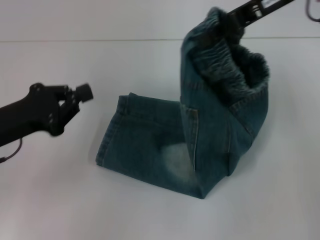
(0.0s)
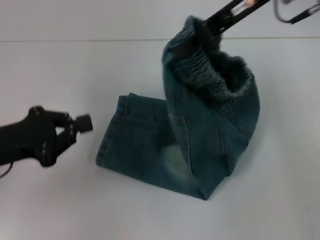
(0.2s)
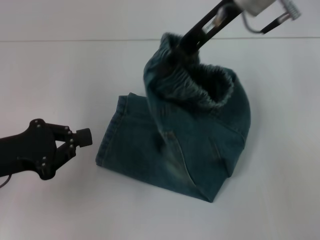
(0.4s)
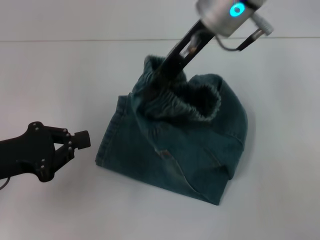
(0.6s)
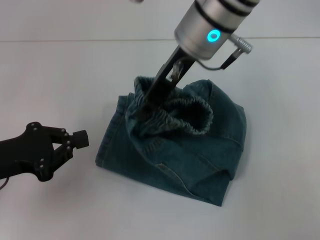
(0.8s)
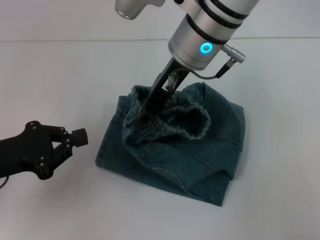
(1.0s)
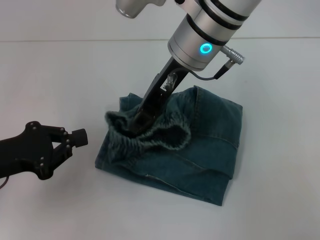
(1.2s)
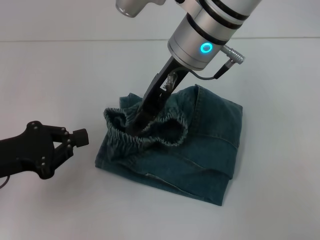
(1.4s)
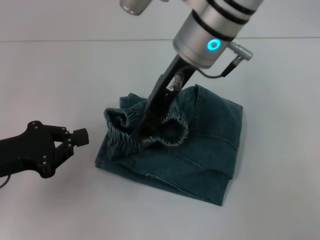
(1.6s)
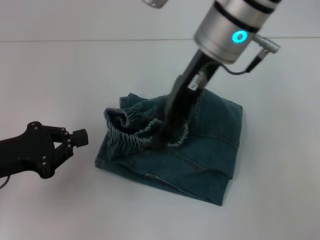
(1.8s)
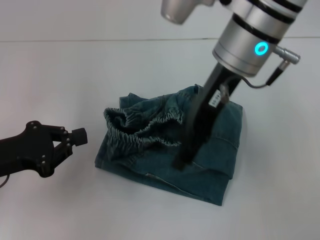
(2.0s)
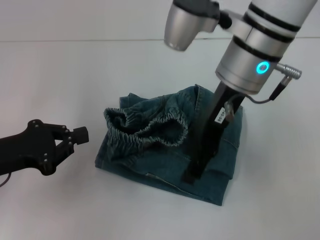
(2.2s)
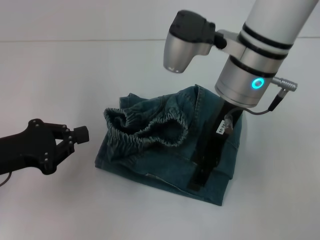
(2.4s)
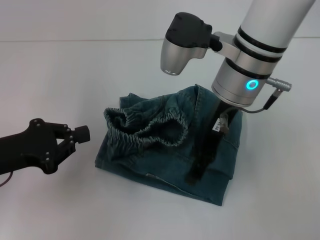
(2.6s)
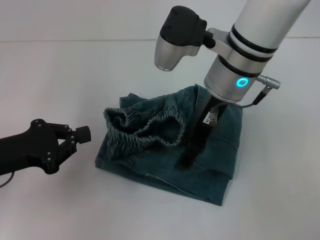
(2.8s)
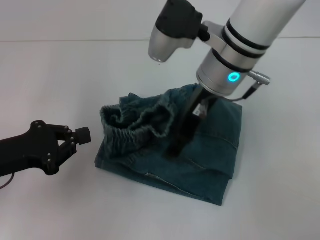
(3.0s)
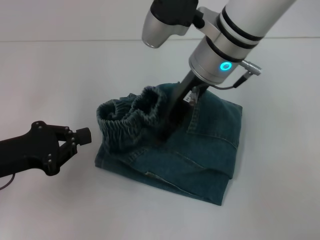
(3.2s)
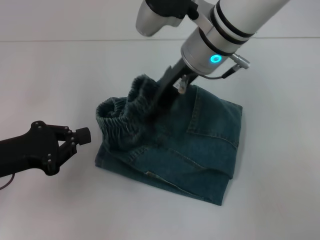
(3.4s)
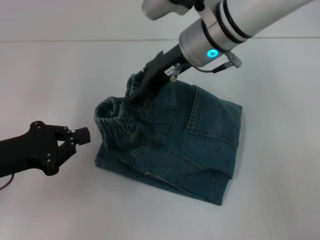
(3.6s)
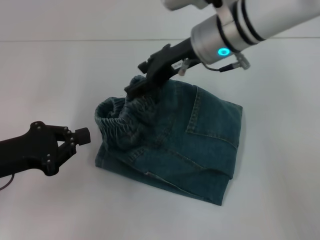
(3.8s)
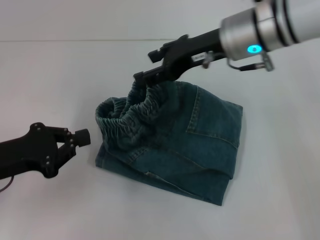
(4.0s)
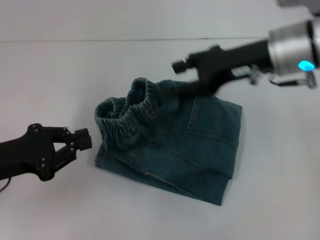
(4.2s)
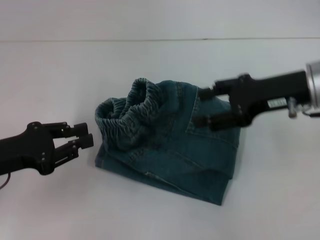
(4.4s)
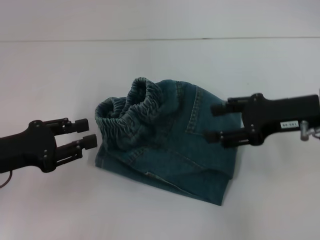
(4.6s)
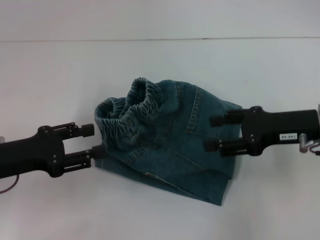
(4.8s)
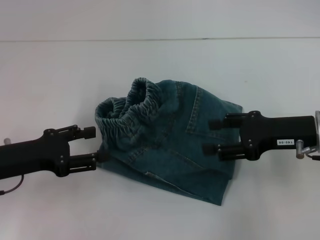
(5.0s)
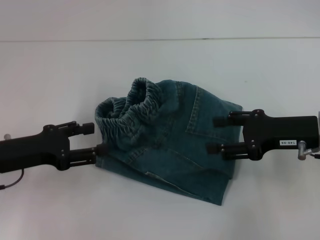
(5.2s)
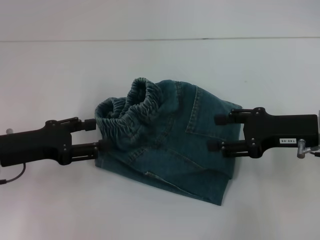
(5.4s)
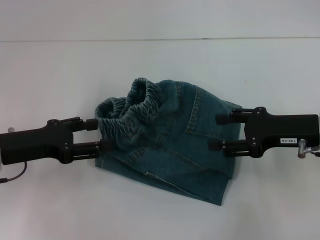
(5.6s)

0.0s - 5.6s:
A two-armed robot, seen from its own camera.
Step, 0.0s - 1.8s: Fold to the left with your right hand.
Step, 2.0s - 3.8s: Adjust the pants with your right hand.
0.0s - 1.4s: The right gripper travels to the left by about 15 cm.
1.4s - 2.8s: The right gripper changes place by roughly 5 cm, and opens up.
2.8s - 4.2s: The right gripper shifts roughly 10 cm to the right.
4.2s - 5.6s: The left gripper opens. The right gripper moves downward, to the right and backward, about 15 cm.

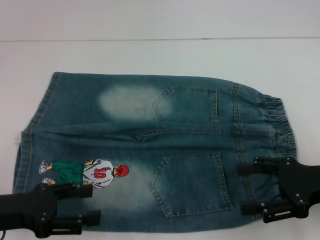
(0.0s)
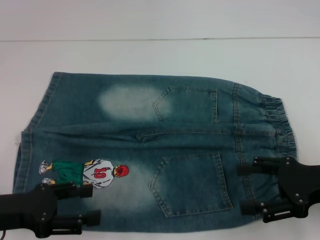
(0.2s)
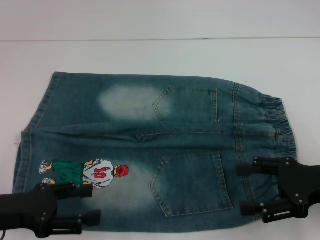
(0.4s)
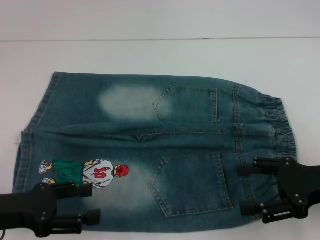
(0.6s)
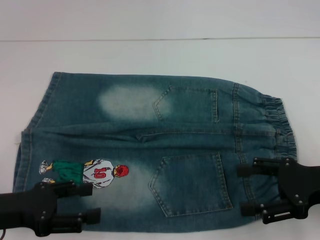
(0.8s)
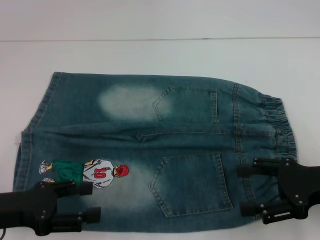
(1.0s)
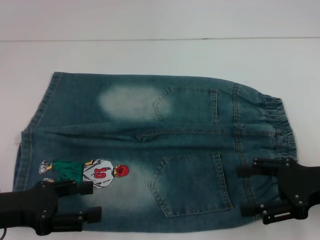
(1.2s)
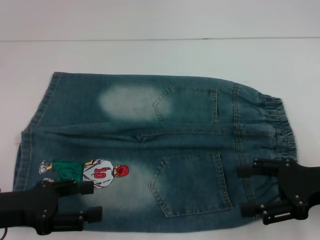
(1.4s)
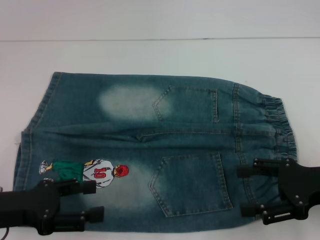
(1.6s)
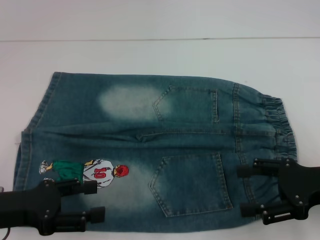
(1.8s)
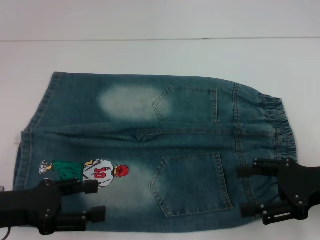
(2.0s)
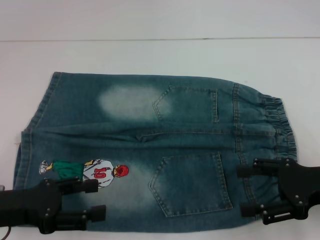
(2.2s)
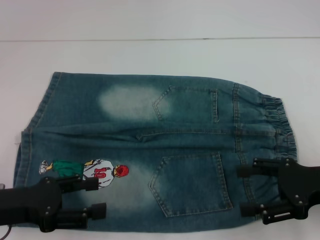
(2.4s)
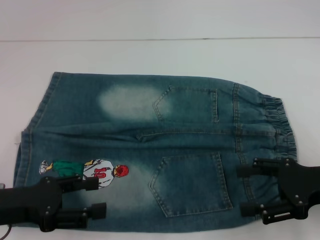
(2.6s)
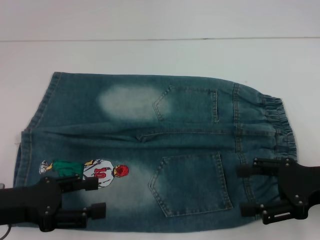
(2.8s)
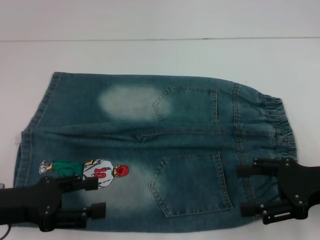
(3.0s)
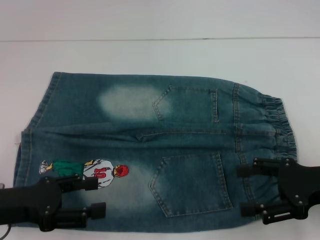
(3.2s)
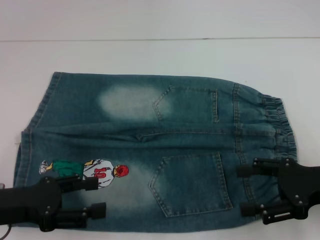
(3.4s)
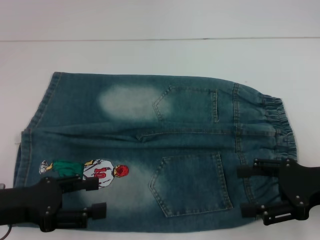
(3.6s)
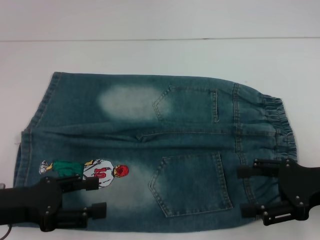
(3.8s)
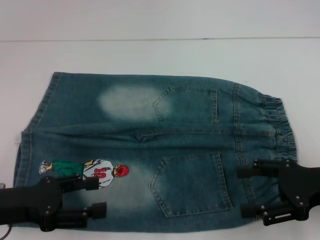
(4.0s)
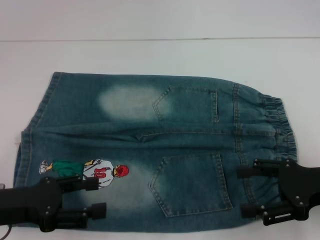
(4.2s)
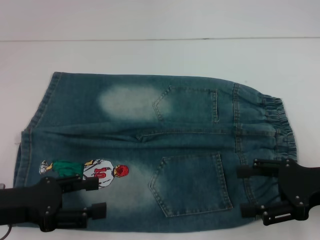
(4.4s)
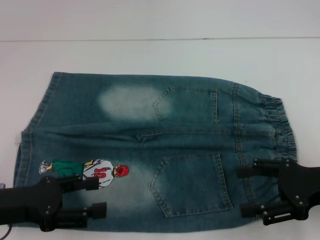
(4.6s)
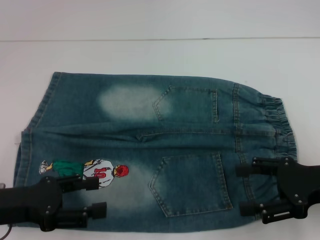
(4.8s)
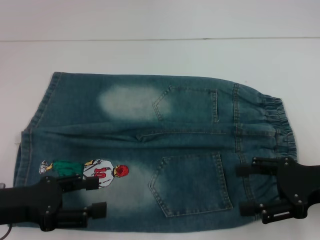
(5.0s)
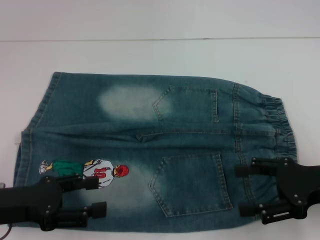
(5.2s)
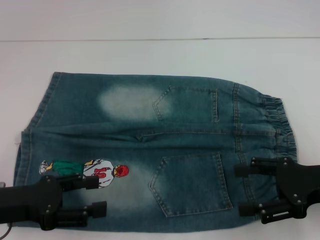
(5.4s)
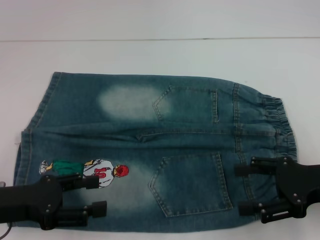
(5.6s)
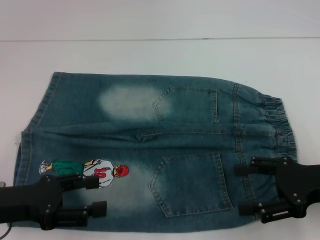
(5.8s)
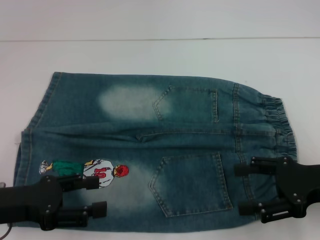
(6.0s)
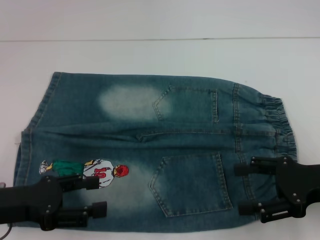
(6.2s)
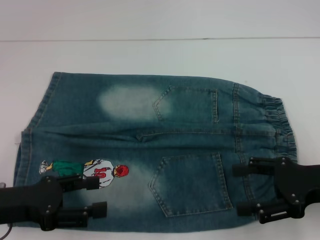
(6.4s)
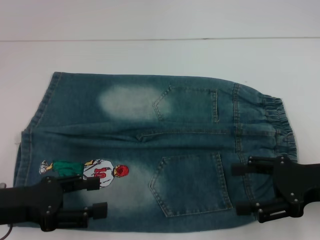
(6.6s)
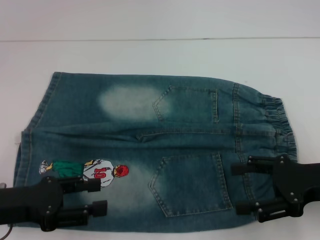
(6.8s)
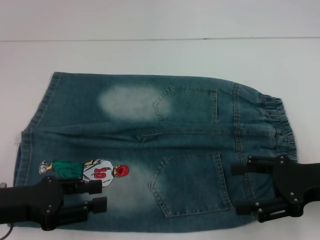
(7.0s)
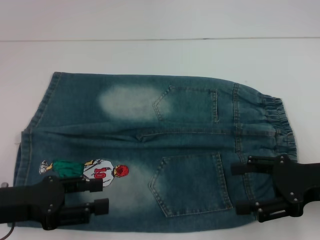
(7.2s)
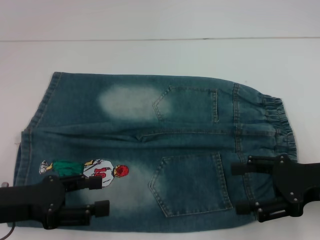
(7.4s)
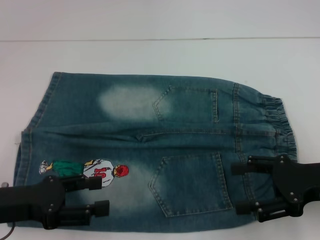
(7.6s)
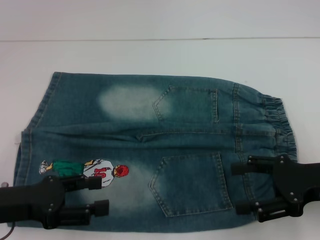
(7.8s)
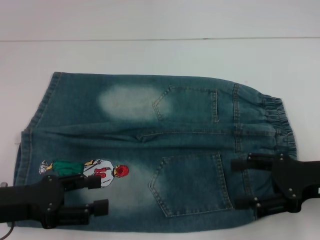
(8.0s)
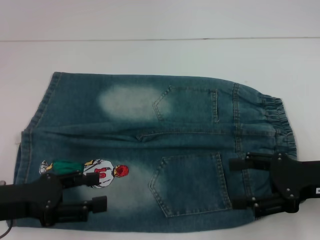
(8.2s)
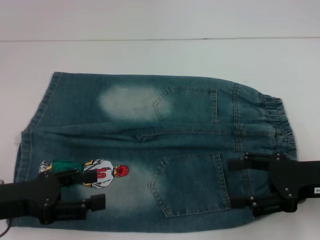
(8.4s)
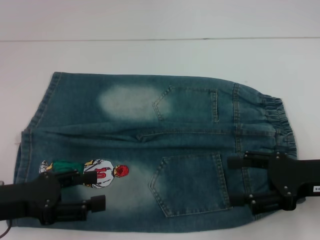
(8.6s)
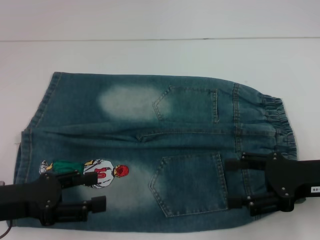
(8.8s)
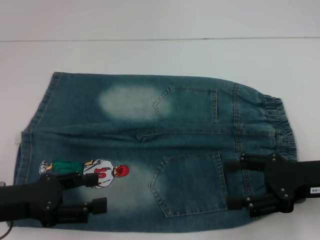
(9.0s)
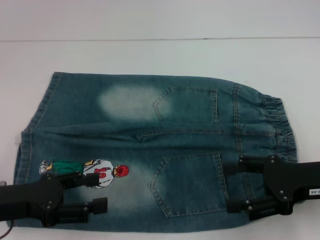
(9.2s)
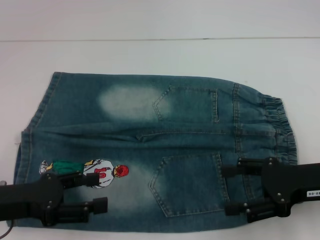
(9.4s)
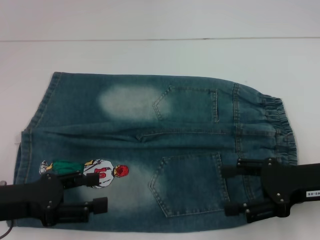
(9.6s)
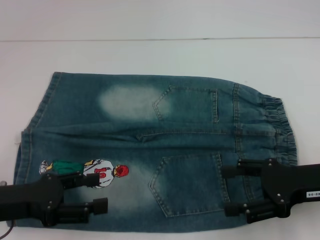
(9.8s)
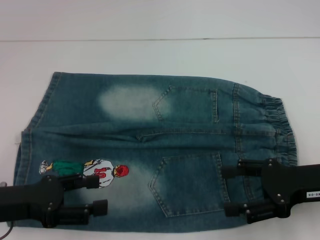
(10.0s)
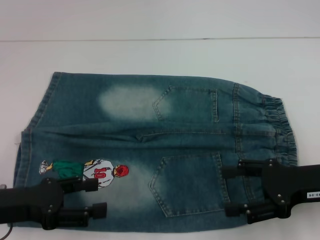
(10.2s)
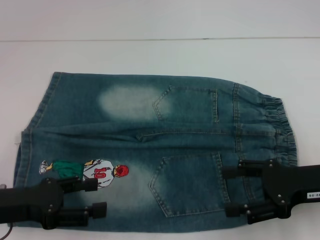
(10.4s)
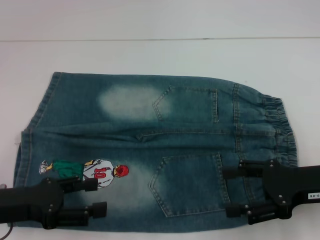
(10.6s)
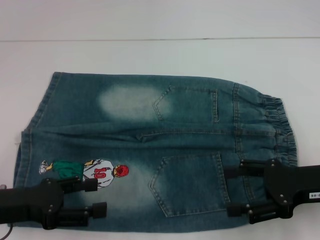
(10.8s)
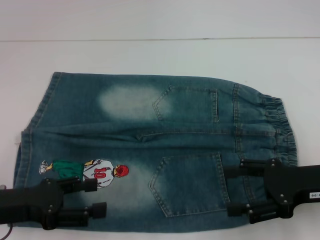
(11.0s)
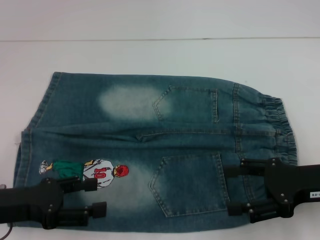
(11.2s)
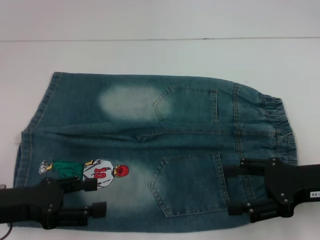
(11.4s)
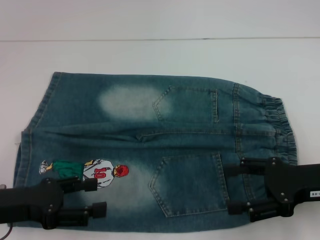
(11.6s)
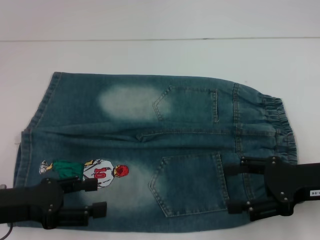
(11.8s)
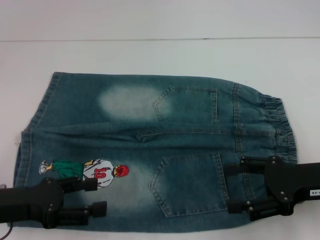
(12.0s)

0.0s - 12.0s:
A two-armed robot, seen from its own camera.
0.0s - 7.6s: Both grippers stay put.
7.6s - 9.0s: The two grippers keep their place.
9.0s - 12.0s: Both grippers stay put.

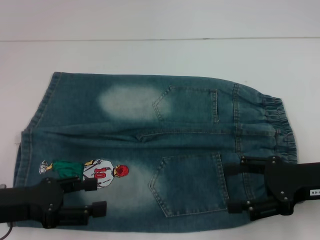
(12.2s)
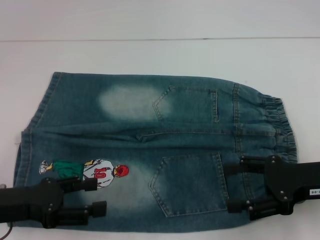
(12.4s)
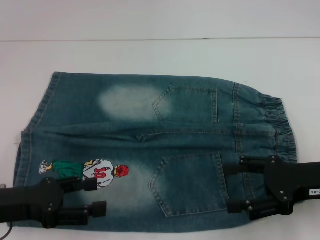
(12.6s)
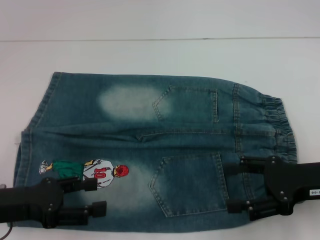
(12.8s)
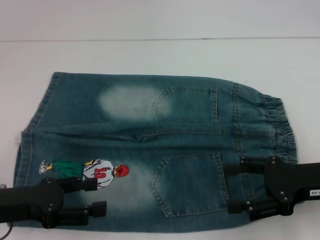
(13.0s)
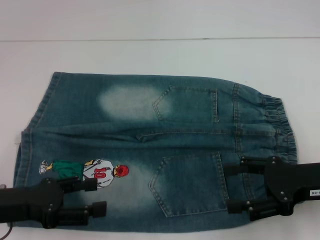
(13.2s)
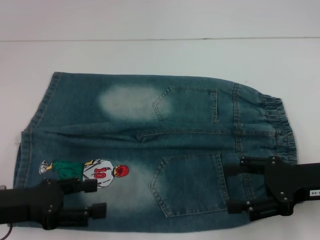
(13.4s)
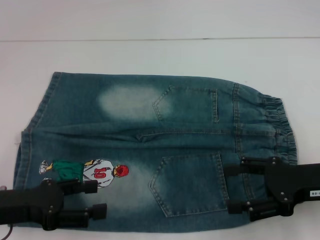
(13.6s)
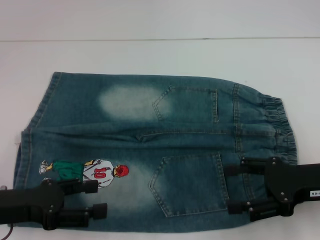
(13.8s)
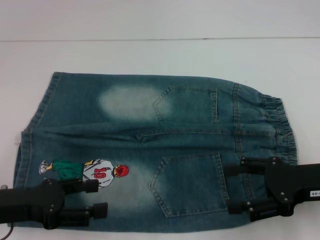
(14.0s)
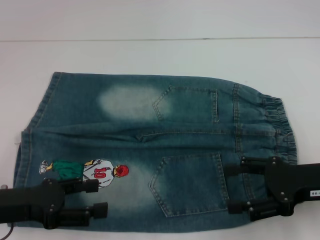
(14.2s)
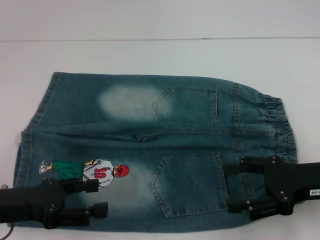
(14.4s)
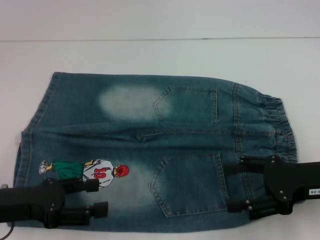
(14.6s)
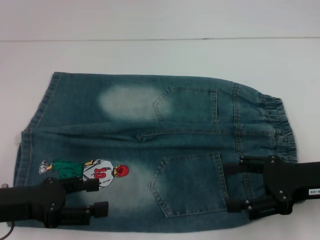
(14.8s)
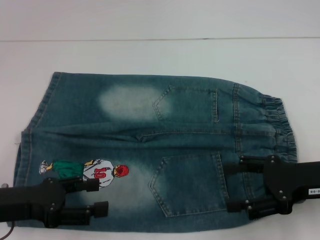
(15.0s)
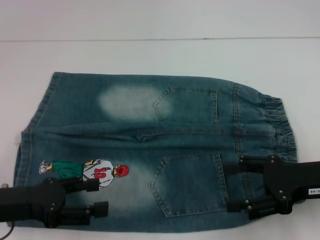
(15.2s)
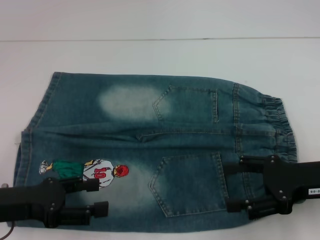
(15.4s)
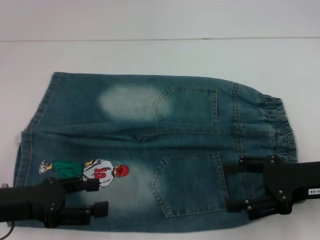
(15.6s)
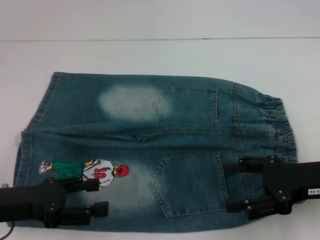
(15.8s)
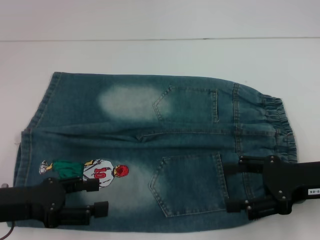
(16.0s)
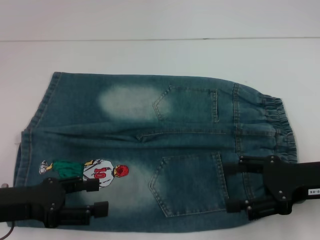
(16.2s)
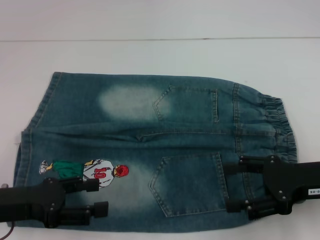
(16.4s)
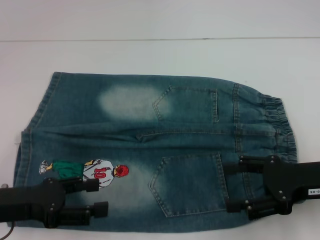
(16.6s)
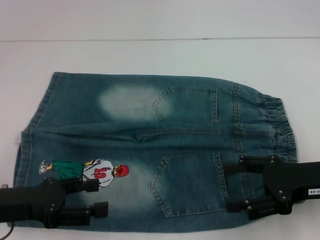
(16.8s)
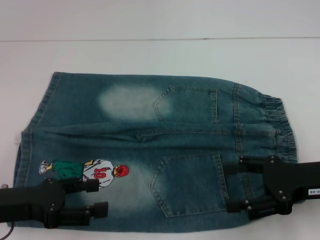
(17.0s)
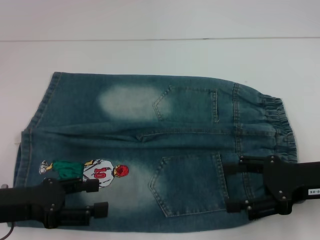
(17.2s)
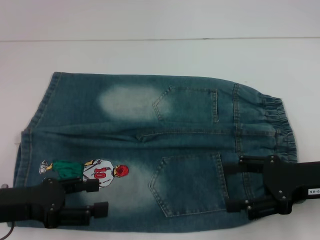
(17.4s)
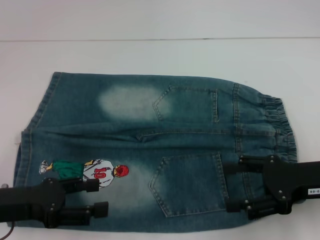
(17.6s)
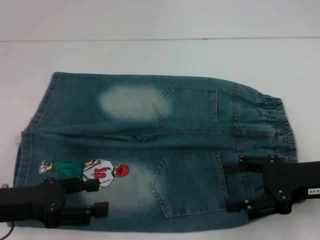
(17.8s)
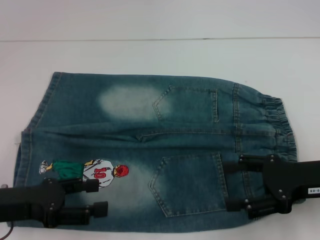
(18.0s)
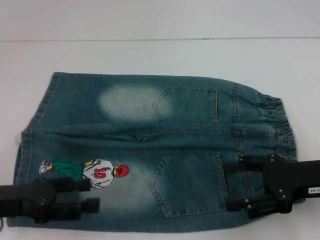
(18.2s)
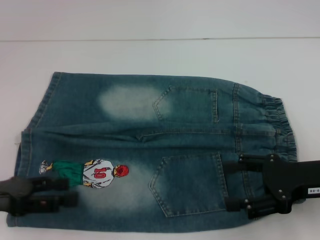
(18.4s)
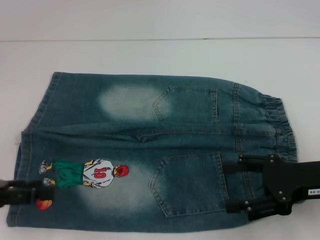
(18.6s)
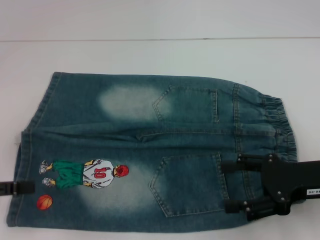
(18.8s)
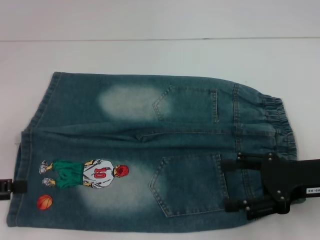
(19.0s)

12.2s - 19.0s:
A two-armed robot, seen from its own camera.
12.2s - 17.6s: Neither gripper changes place.
17.6s - 19.0s: The left gripper moves to the left, approximately 10 cm.
